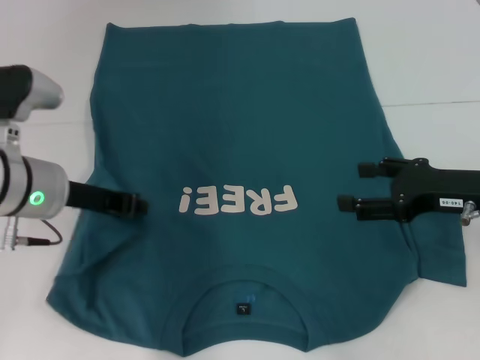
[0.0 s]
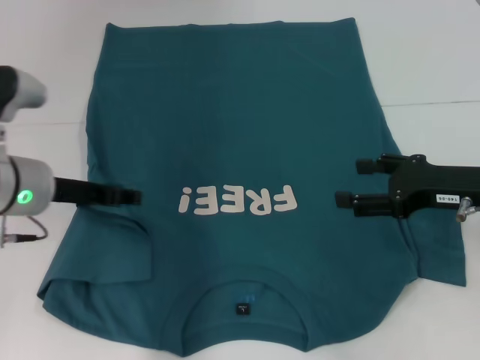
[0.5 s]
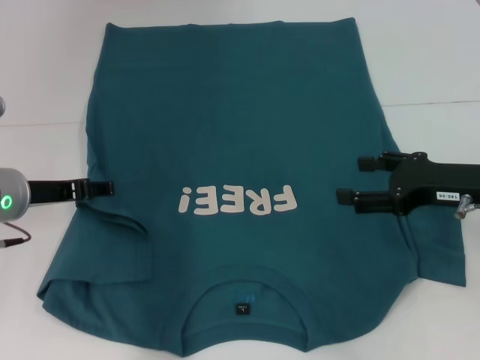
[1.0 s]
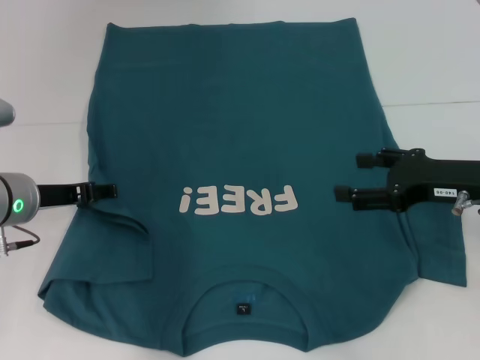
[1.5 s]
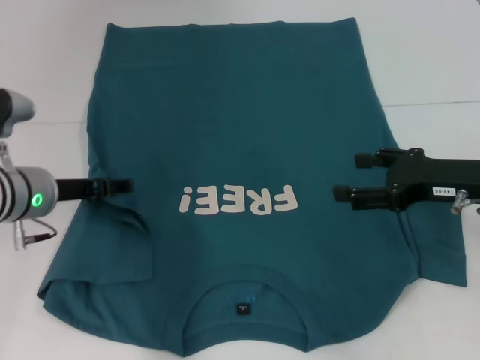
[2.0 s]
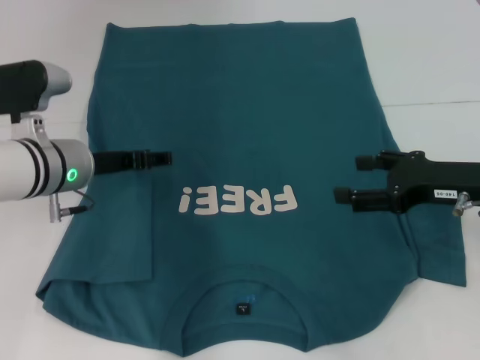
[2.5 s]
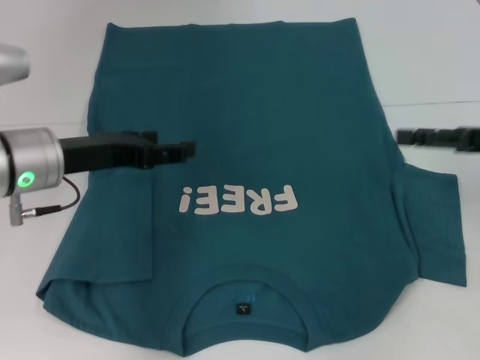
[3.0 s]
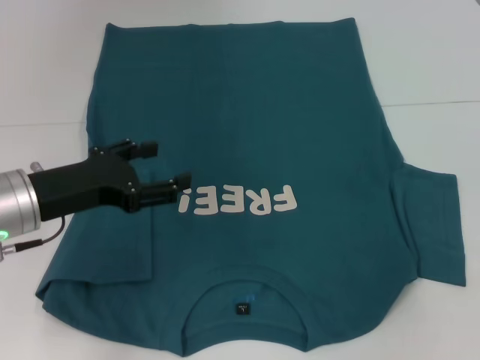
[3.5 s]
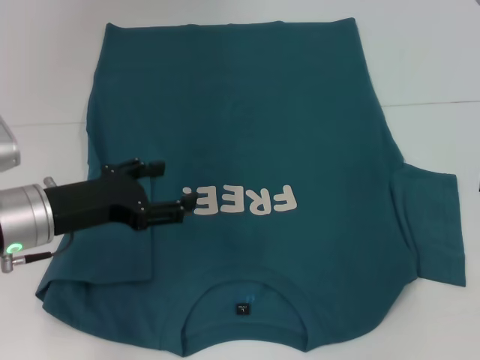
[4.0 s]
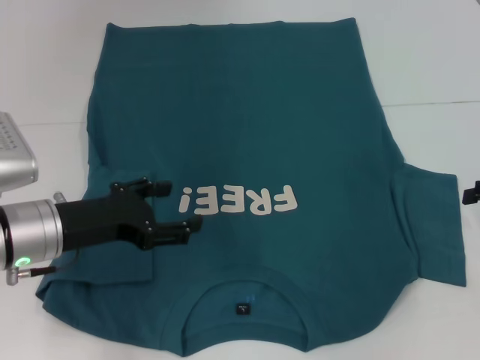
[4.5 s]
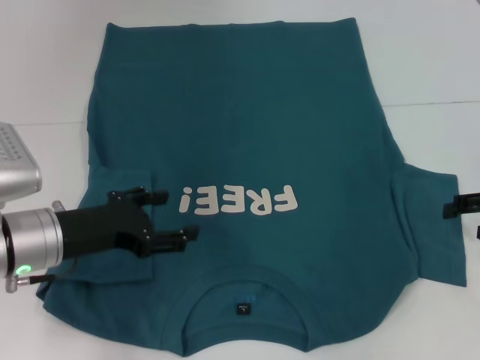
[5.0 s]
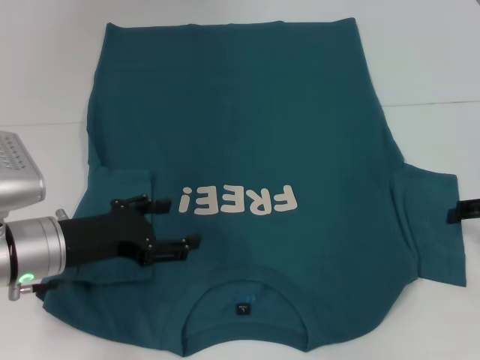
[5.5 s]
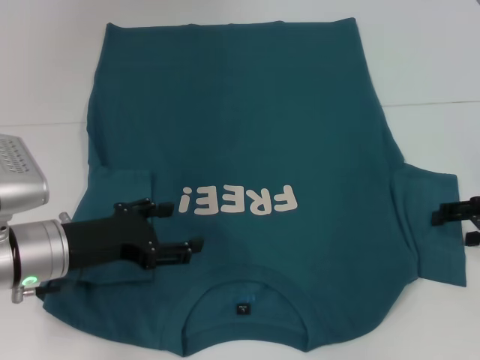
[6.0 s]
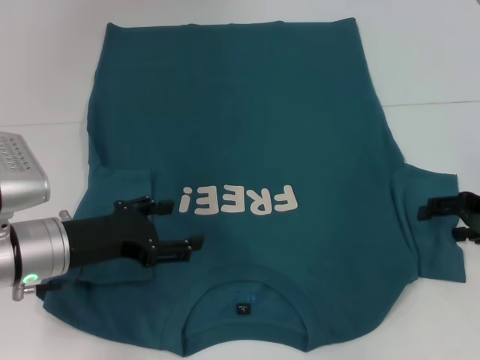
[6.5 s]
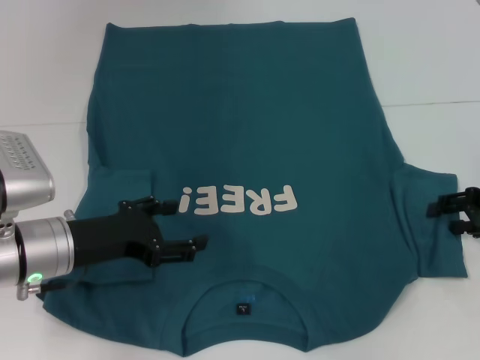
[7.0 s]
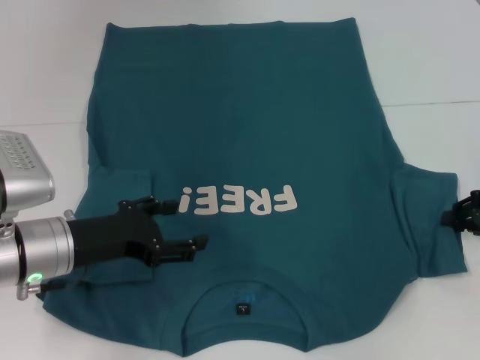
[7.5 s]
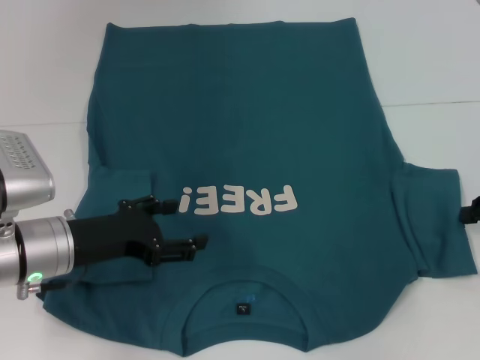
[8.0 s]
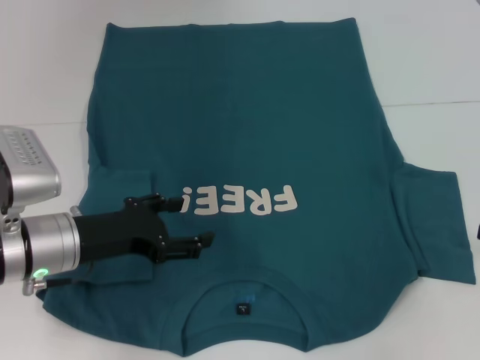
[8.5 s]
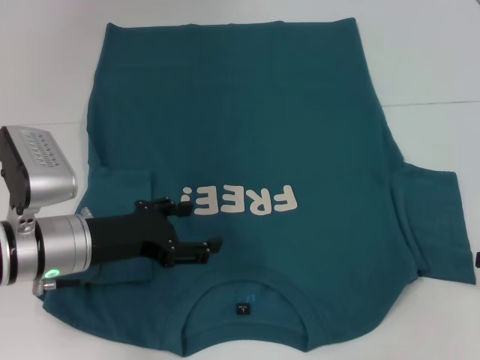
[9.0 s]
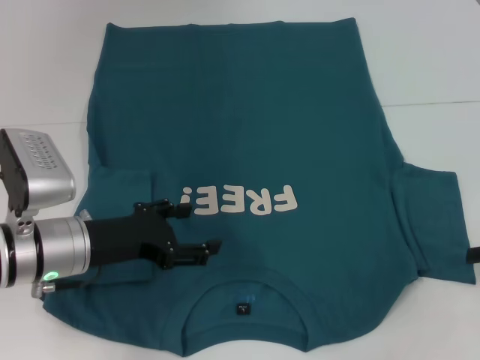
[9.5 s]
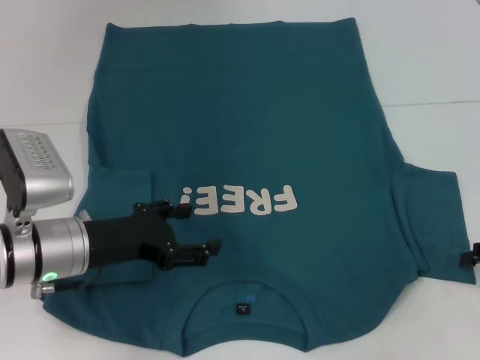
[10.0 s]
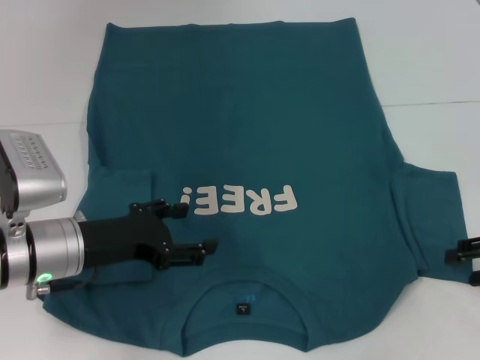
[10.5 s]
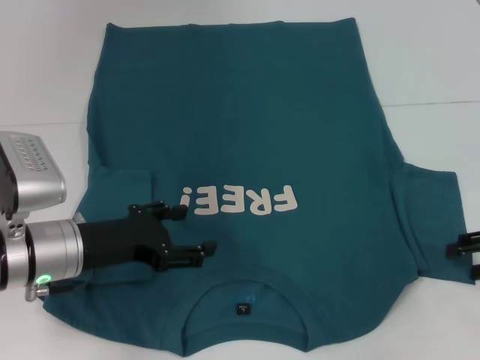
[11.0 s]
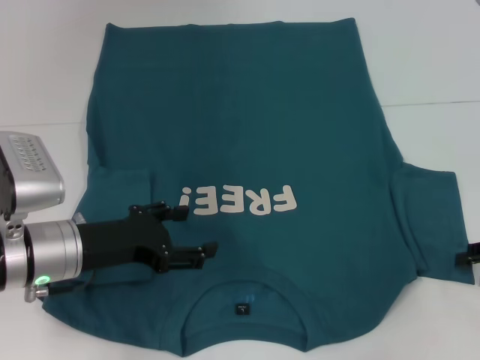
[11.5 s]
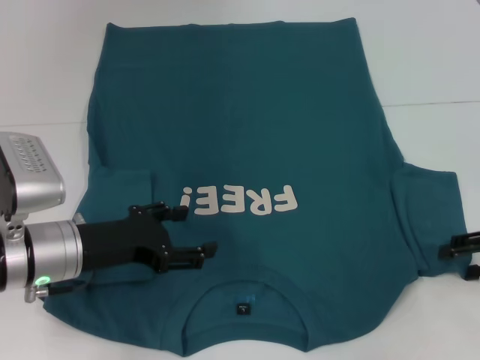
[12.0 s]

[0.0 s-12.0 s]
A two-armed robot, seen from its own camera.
Step, 0.0 to 3.0 s: Fold the bottom left sleeve with your left hand.
0.0 to 2.0 s: The left gripper shifts by roughly 5 cm, and opens up.
2.0 to 4.0 s: The left gripper heads backward, covering about 5 cm. The right gripper goes about 10 cm to the right.
4.0 to 6.0 s: The right gripper goes about 5 cm downward.
6.0 to 8.0 s: The right gripper closes up.
8.0 to 10.0 s: The right gripper opens up.
10.0 to 12.0 s: The grippers move only a little.

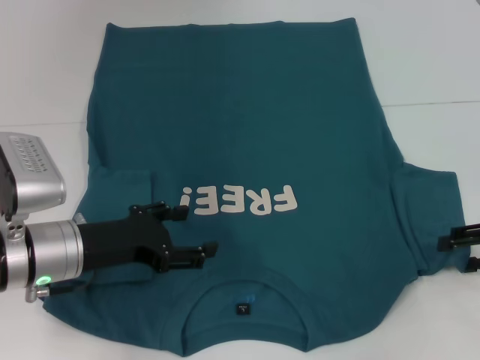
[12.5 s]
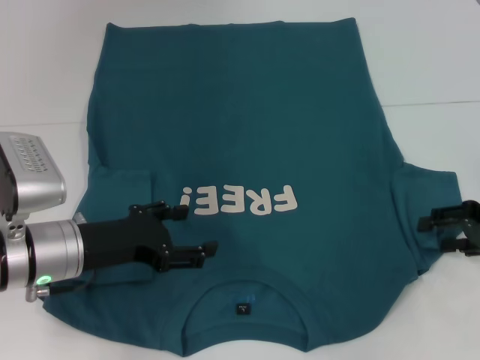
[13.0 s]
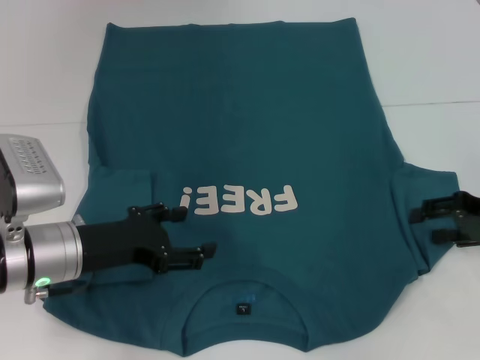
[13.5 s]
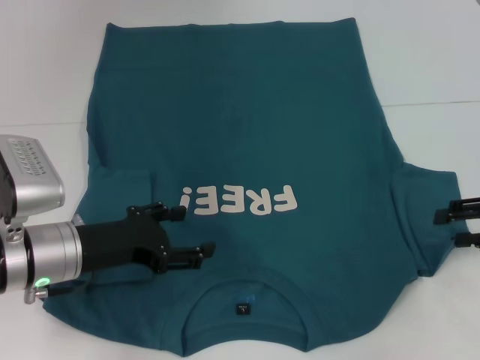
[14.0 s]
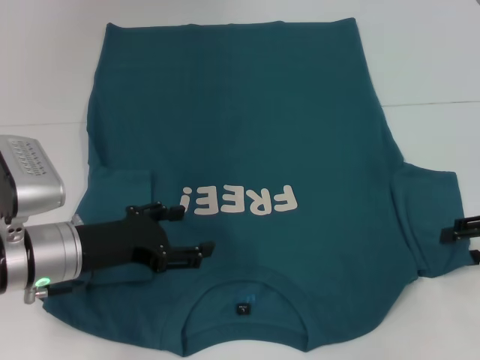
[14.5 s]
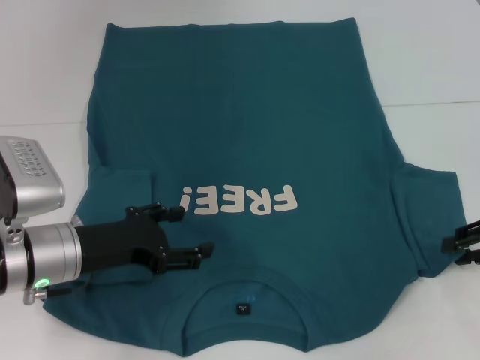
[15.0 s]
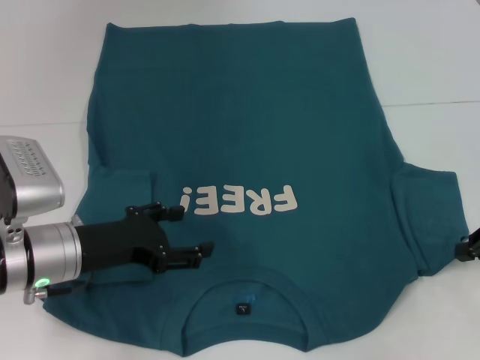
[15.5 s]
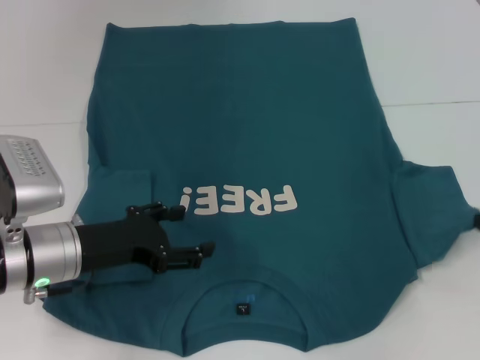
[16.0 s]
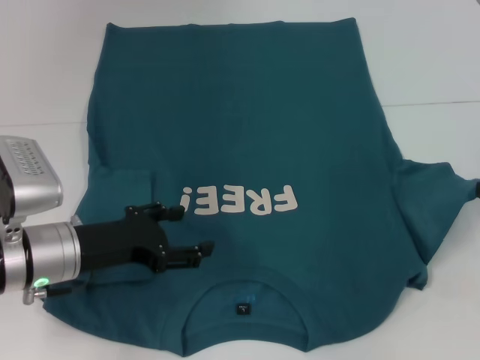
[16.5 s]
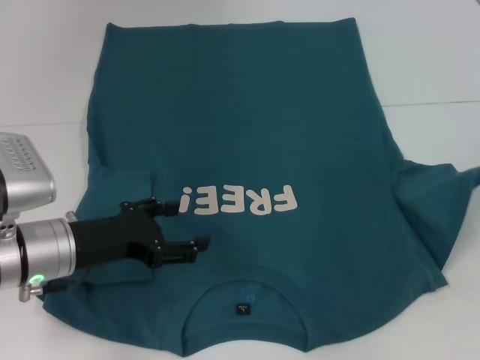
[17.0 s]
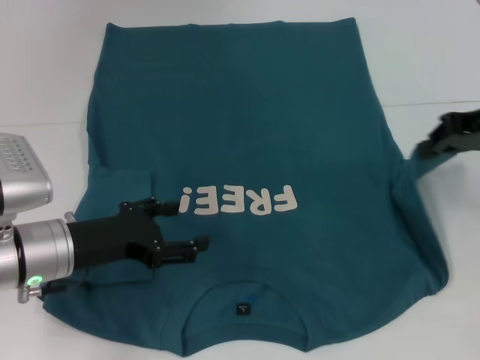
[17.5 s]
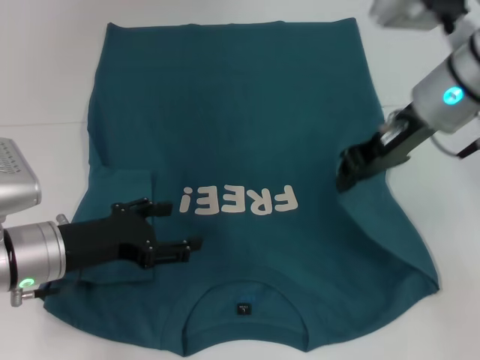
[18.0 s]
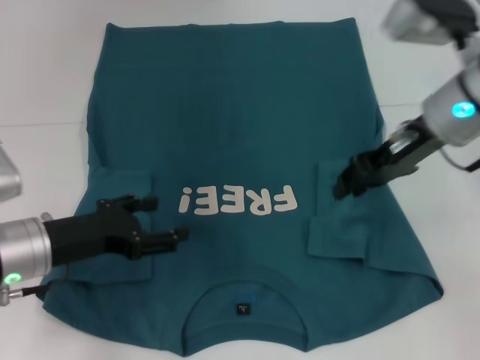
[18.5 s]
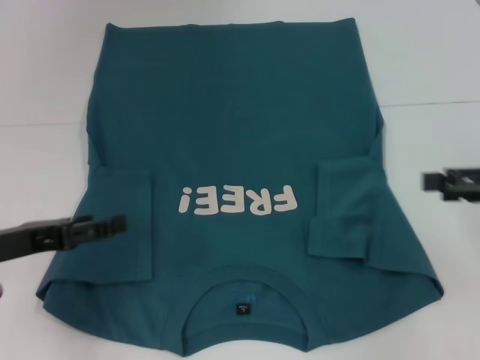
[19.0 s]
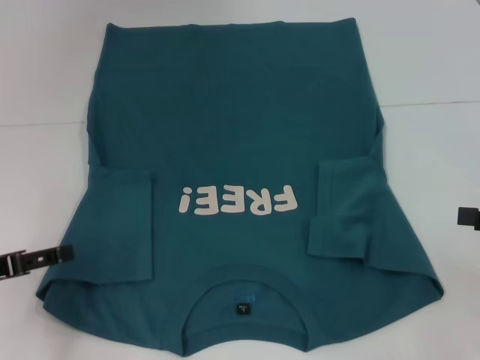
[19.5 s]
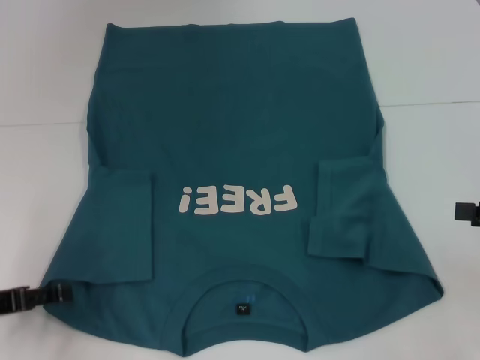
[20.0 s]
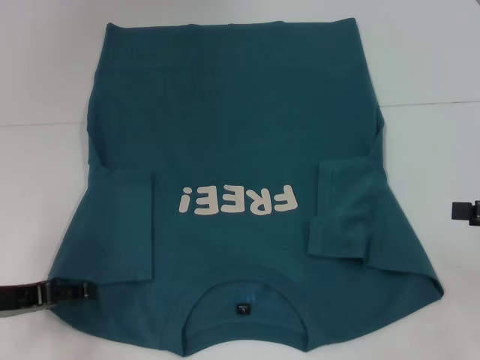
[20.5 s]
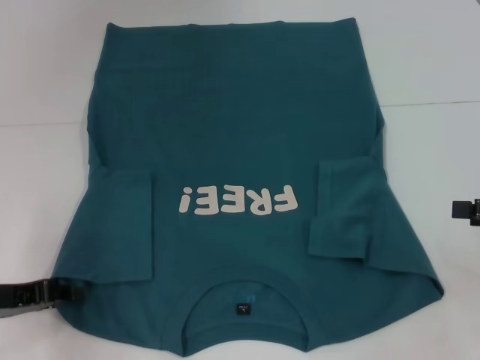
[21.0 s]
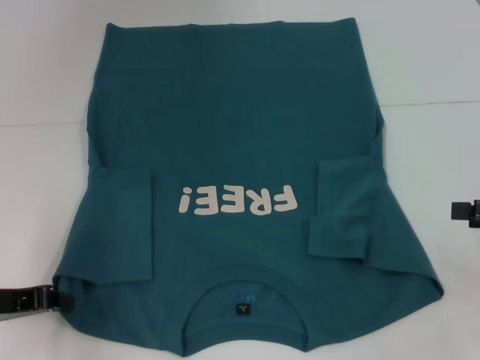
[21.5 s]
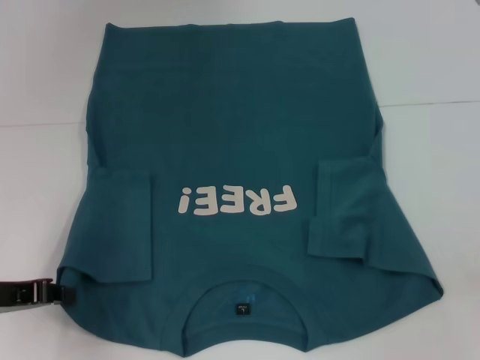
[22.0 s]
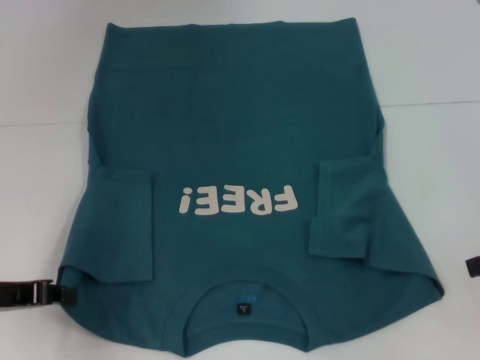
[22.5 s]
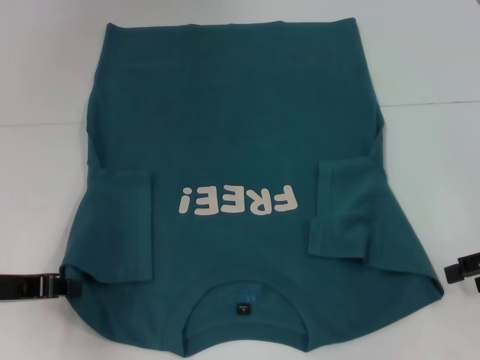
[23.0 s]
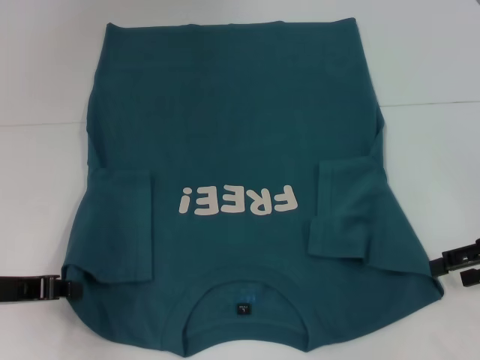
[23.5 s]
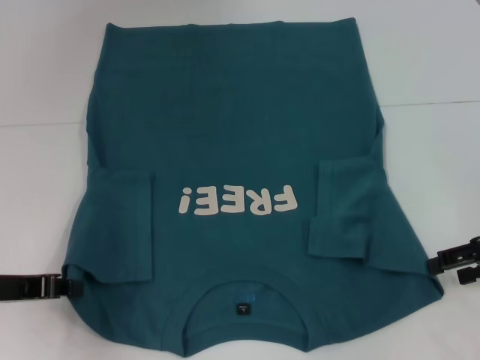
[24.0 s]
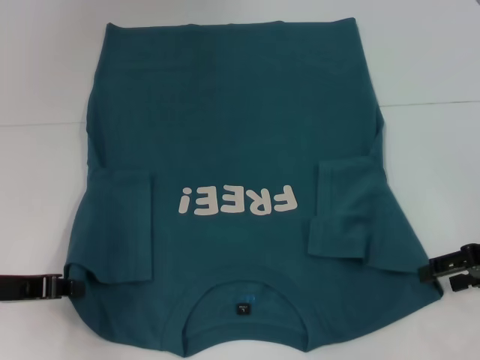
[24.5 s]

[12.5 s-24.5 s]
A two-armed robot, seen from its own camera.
Step, 12.5 to 18.5 s: Fold the bottom right sleeve to the right.
Step, 19.0 to 21.5 s: Grab the bottom left corner with your left hand.
12.5 to 14.5 s: The grippers make only small movements.
14.5 to 16.5 s: The right gripper goes approximately 5 cm upward, and closes.
16.5 to 18.5 s: The right gripper is displaced to the left by about 15 cm.
18.5 to 20.5 s: The left gripper is displaced to the left by roughly 5 cm; the right gripper travels to the right and backward by some 20 cm, and opens up.
20.5 to 22.5 s: The left gripper closes its fingers.
22.5 to 24.5 s: The right gripper moves roughly 5 cm.

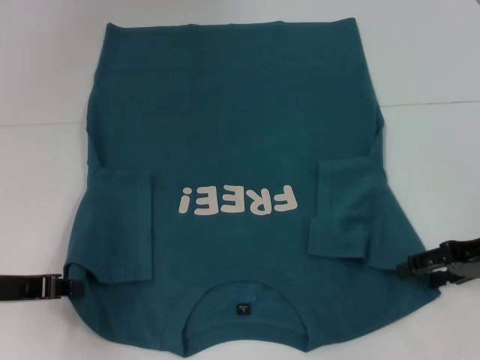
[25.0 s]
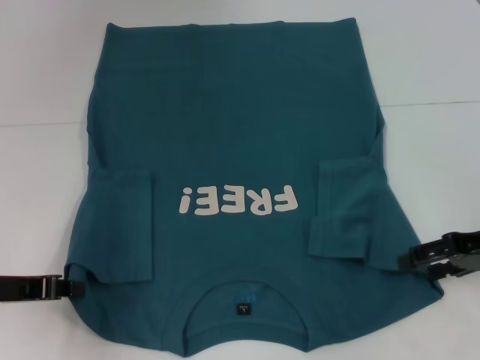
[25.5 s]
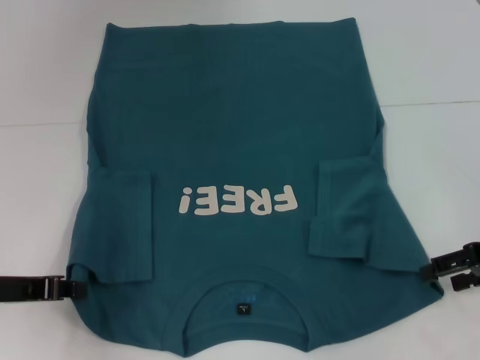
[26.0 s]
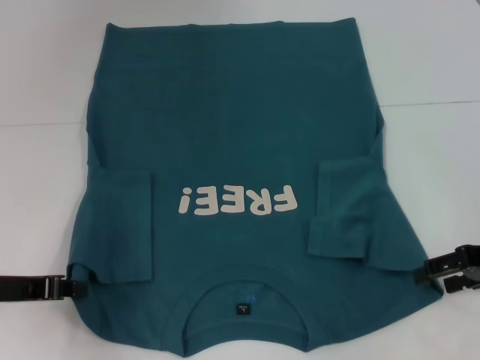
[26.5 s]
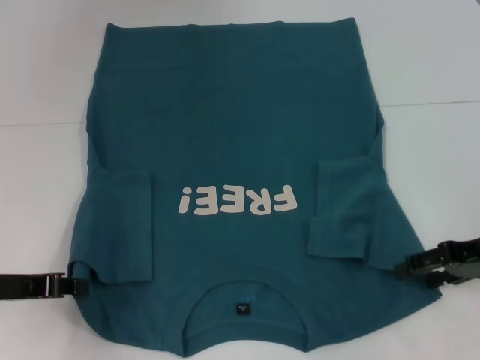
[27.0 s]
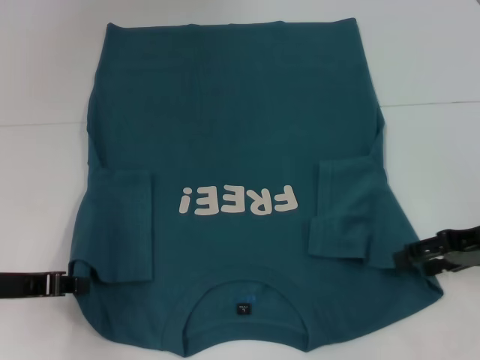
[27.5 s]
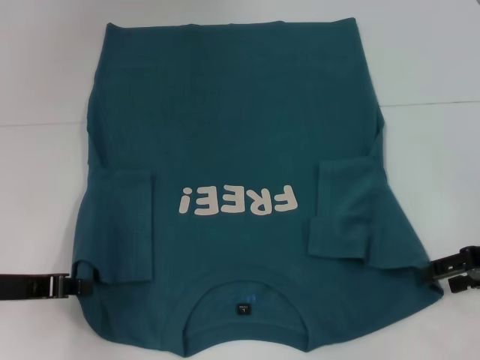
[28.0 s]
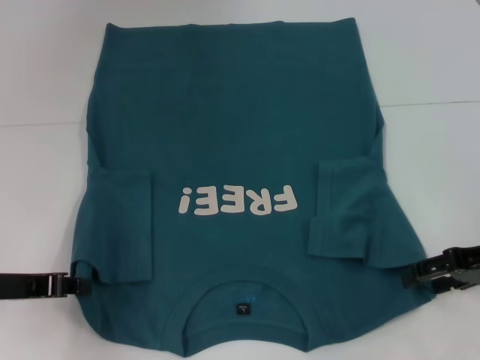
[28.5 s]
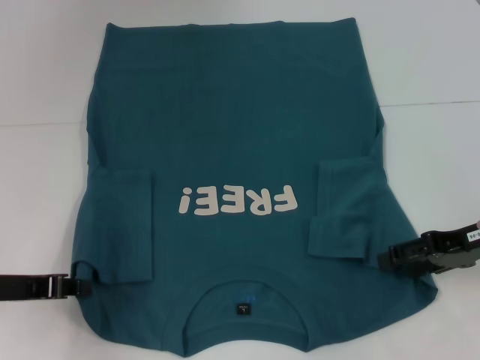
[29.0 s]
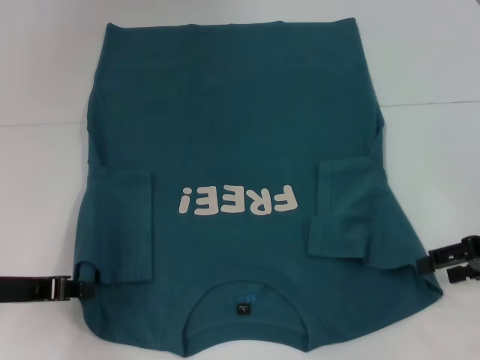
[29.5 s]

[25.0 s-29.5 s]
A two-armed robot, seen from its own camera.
27.0 to 29.5 s: The grippers move only a little.
